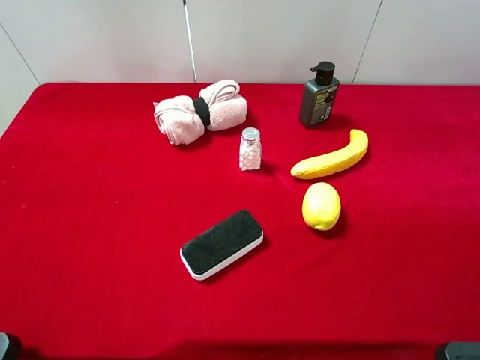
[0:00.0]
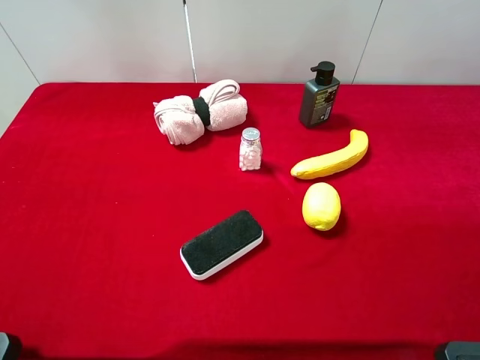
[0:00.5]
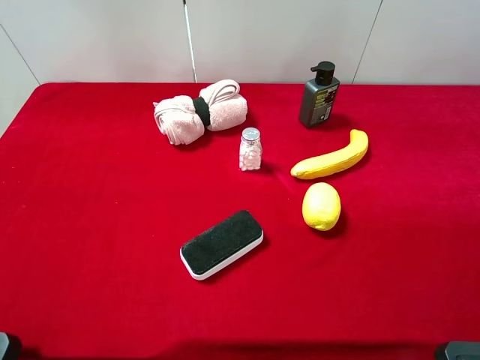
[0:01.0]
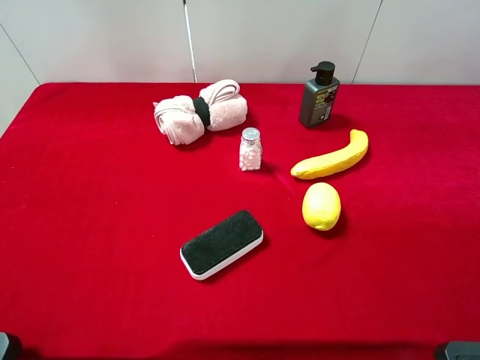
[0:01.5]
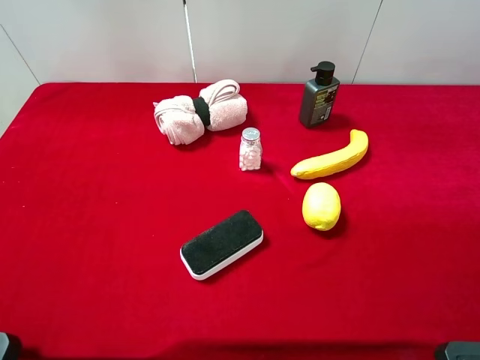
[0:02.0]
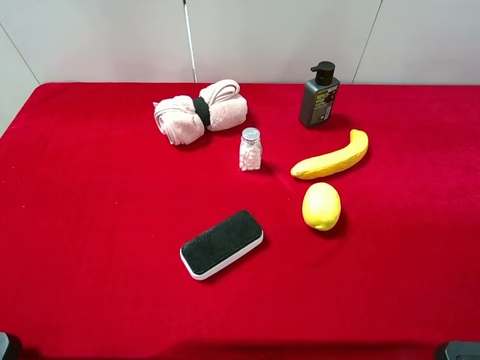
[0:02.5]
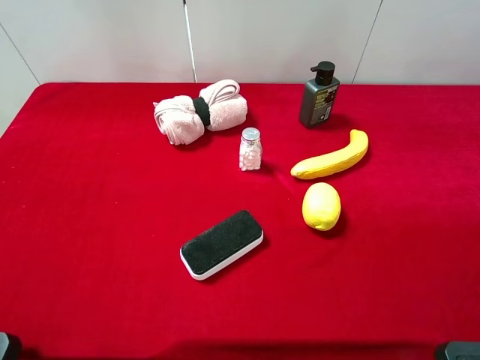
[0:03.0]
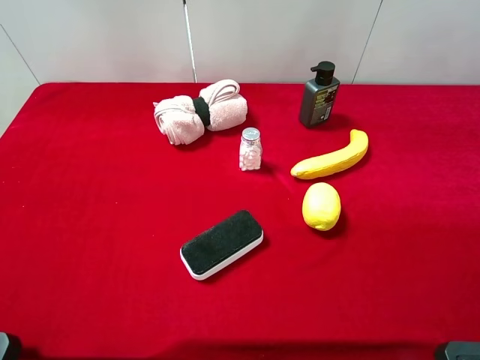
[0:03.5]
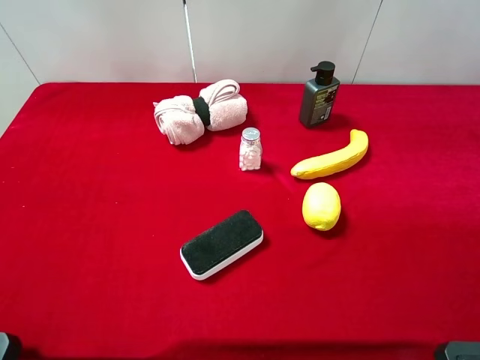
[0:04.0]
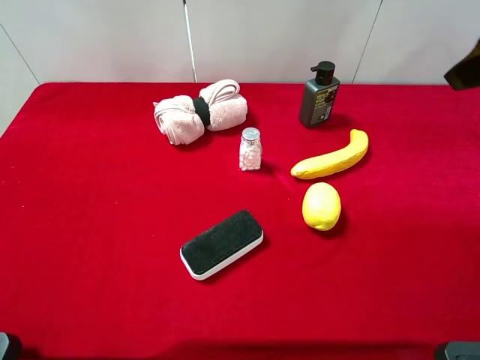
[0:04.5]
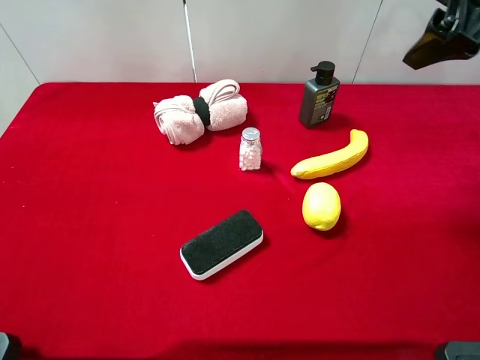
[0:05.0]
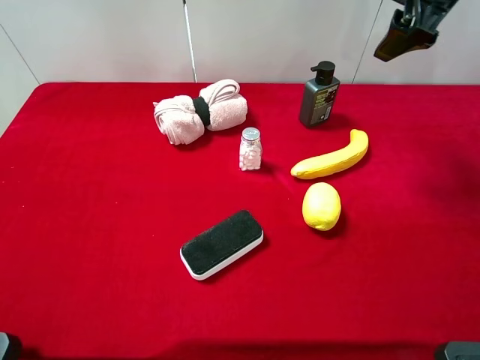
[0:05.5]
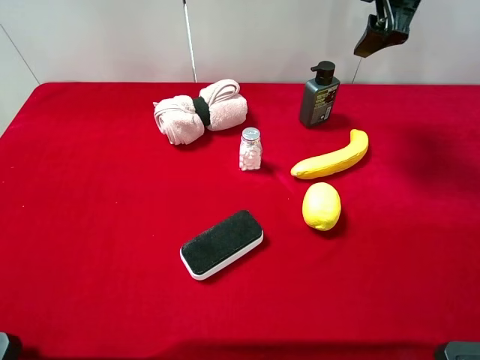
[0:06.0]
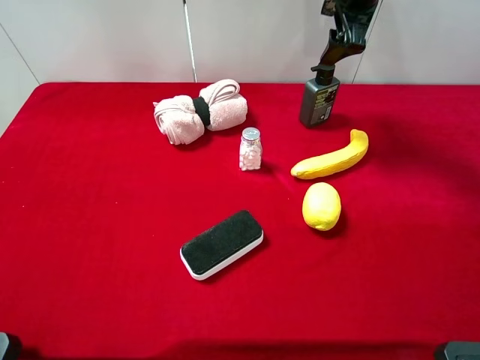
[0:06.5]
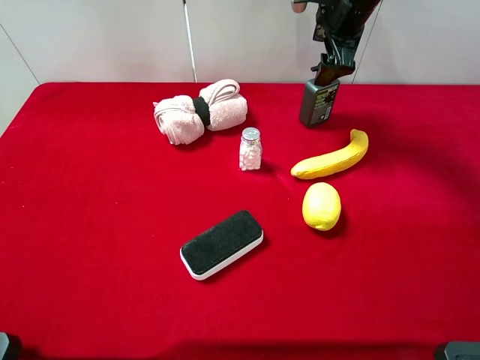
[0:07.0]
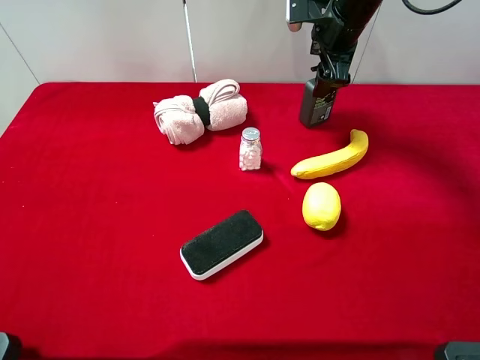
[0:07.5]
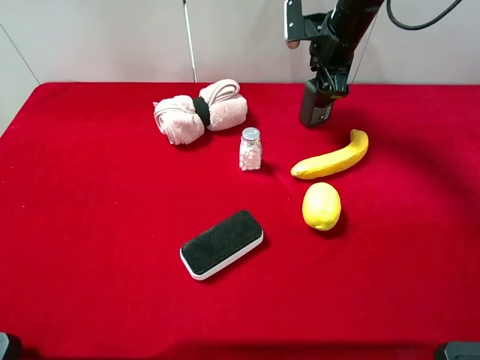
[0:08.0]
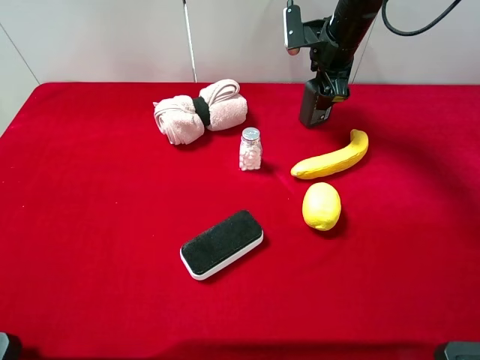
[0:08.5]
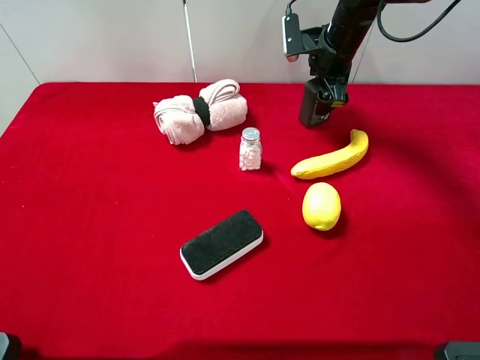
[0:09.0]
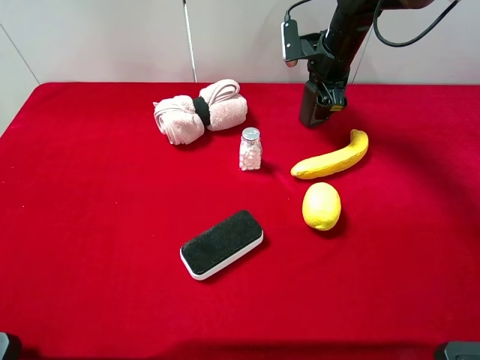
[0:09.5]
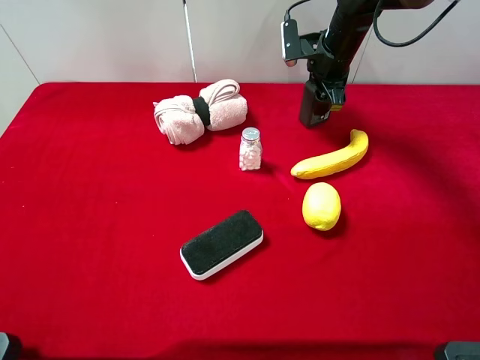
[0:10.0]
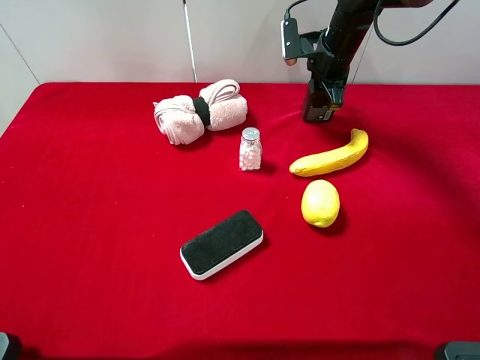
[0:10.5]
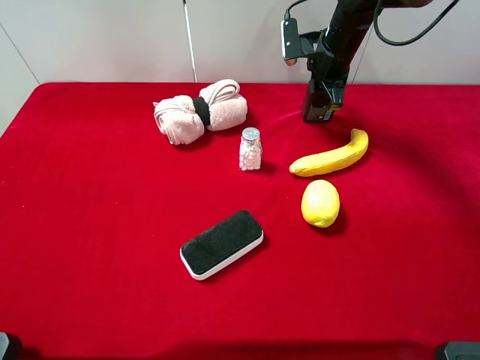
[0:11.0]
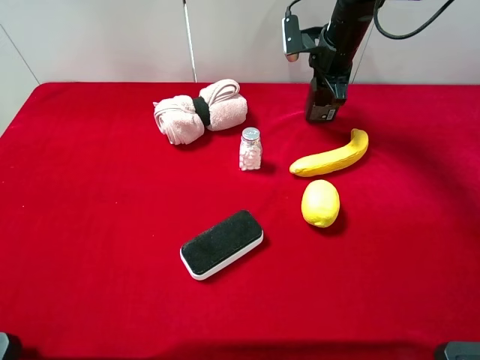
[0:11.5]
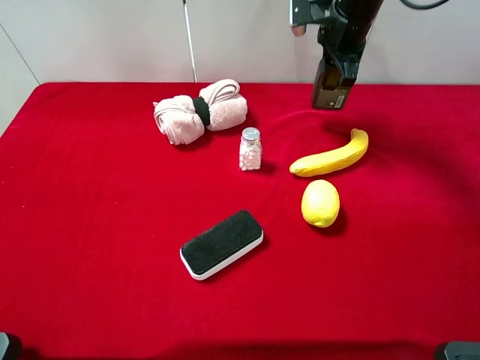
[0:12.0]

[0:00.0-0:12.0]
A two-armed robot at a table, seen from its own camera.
Task of the whole recording: the gripper move the object.
Step, 0:00.0 to 0:10.0: Grasp the hard facial cleanser with the right gripper.
0:00.0 to 0:02.0: Neither gripper changes place.
0:04.0 to 0:06.0: The right gripper moves forward, roughly 25 cm.
0:06.0 to 0:08.0: The right gripper heads downward and forward, covering approximately 15 cm.
0:08.0 to 0:10.0: The right gripper closes up.
0:10.0 to 0:12.0: The right gripper goes approximately 5 cm upward, and closes its fingers.

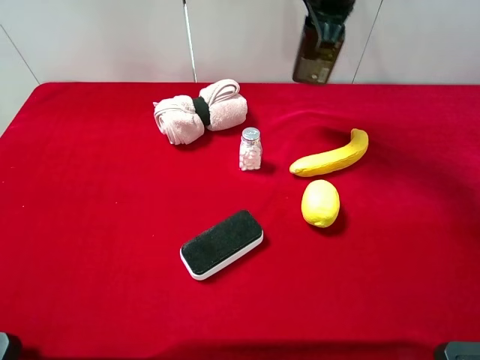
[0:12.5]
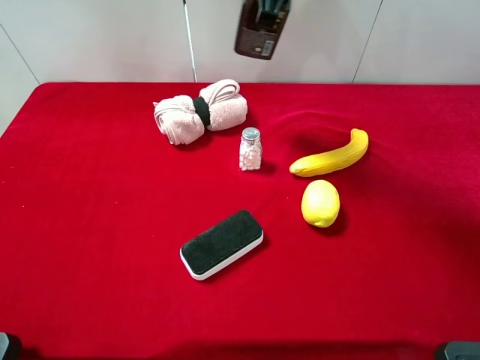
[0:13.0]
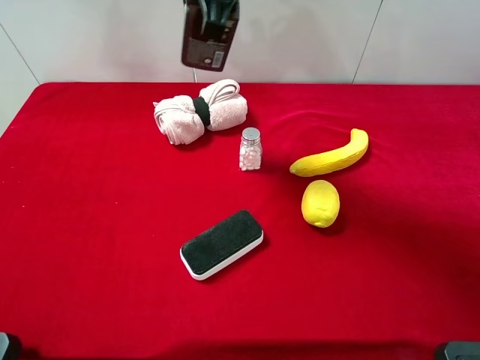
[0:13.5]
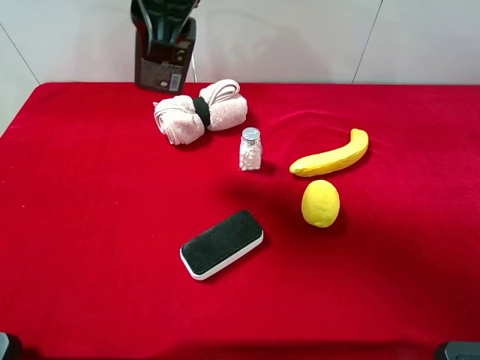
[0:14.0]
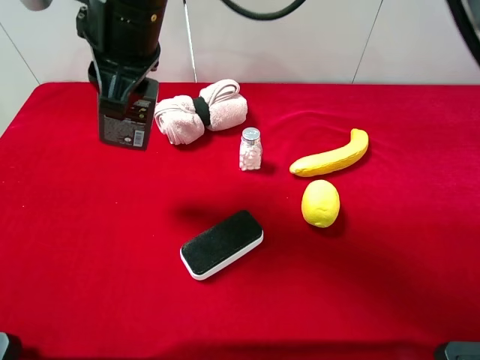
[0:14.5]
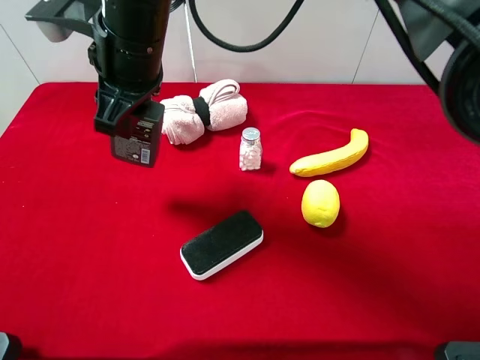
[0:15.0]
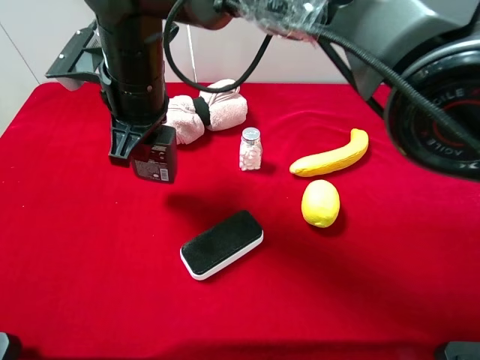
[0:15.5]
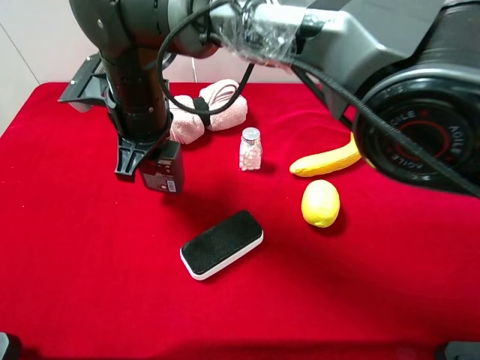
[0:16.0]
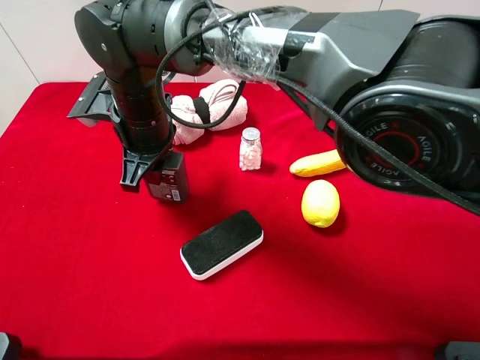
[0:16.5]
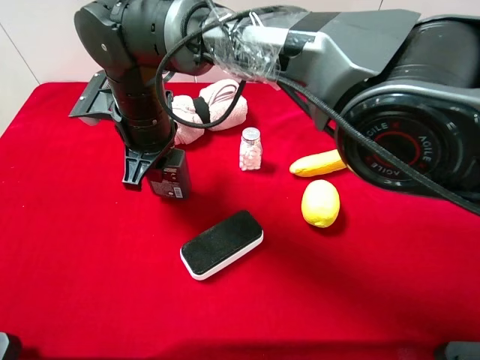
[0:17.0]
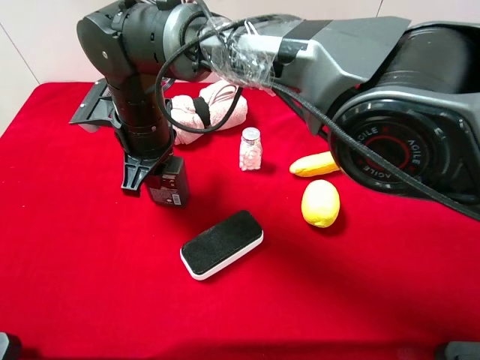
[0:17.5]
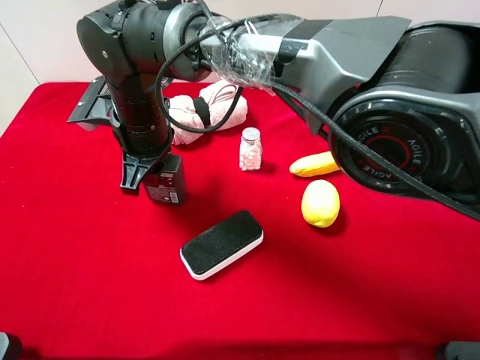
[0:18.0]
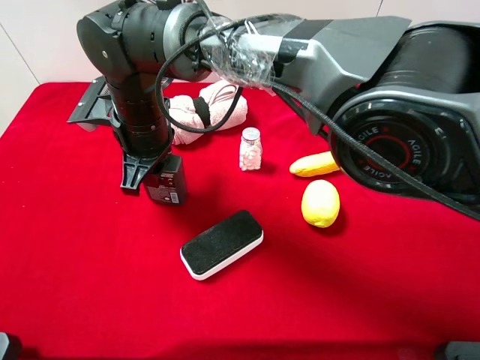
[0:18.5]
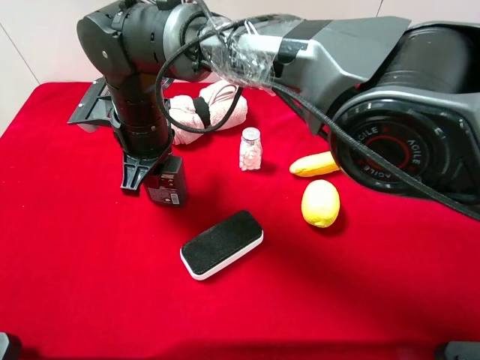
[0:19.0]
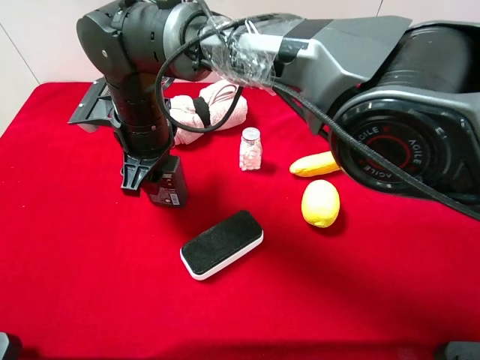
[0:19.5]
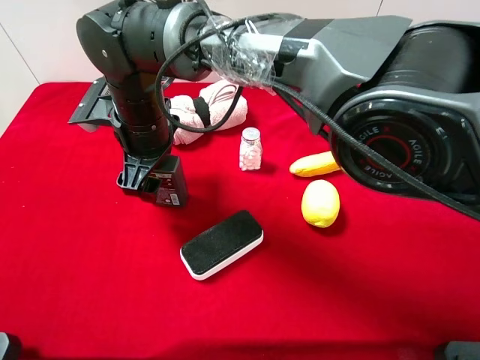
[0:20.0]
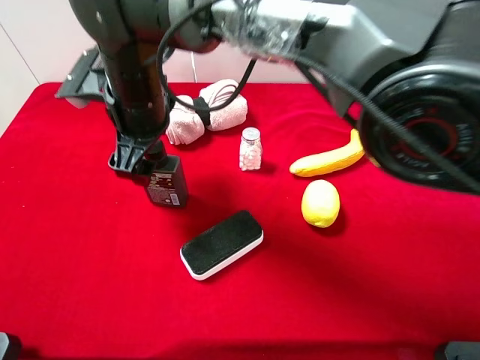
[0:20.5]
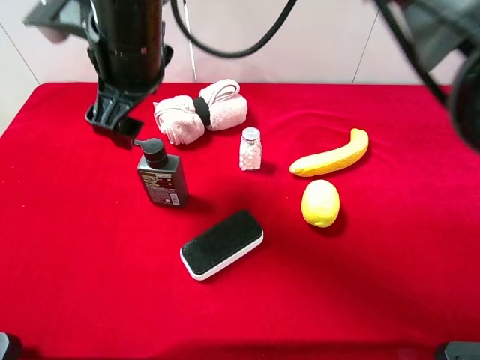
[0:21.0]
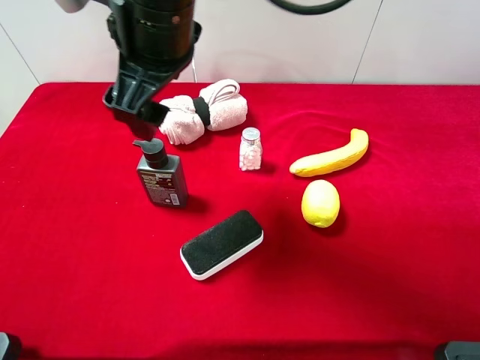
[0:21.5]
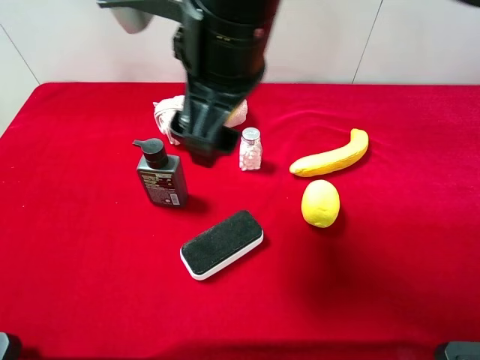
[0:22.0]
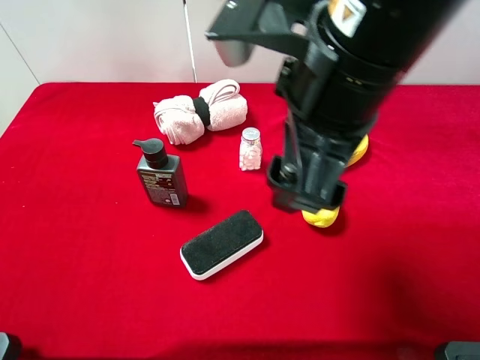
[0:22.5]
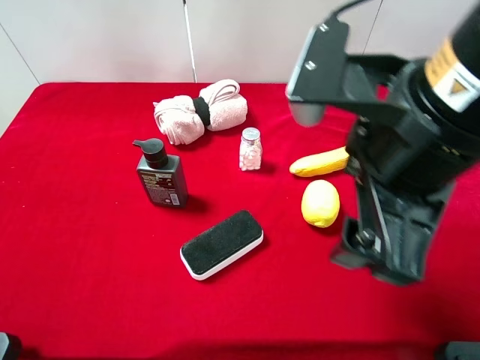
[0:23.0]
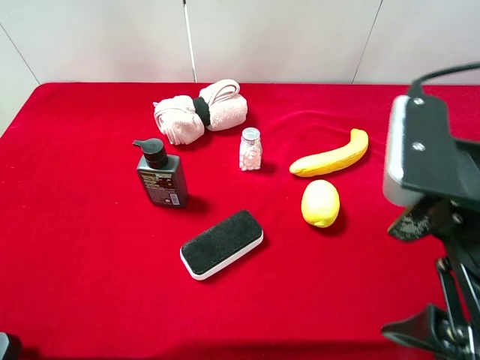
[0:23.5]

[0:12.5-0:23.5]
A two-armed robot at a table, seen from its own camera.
Task of the whole recording: the gripper move the object.
Step, 0:12.5 to 0:20.5: Place the hard facial cleanser on the table with the right gripper.
0:12.5 to 0:14.5: The right gripper travels to the left and backward by approximately 25 cm.
0:14.5 to 0:16.0: The right gripper shifts roughly 10 cm downward.
0:18.0 to 0:20.0: The right gripper opens.
0:20.0 to 0:21.5: The right gripper moves upward and to the right, roughly 15 cm.
0:21.5 to 0:23.5: The right gripper heads to the right and backward, covering approximately 30 cm.

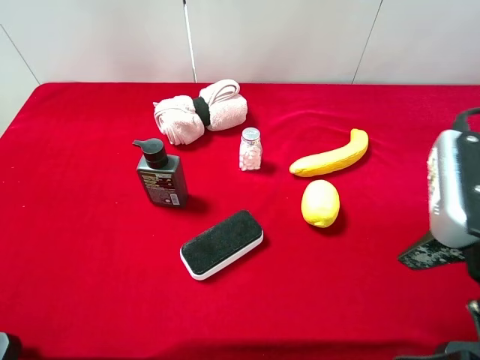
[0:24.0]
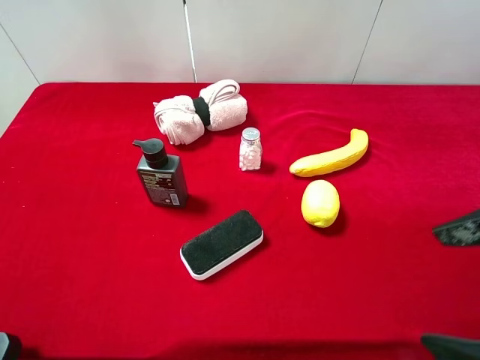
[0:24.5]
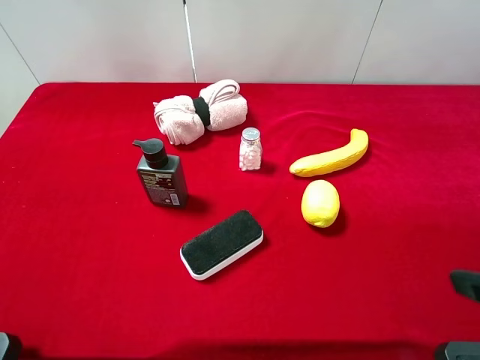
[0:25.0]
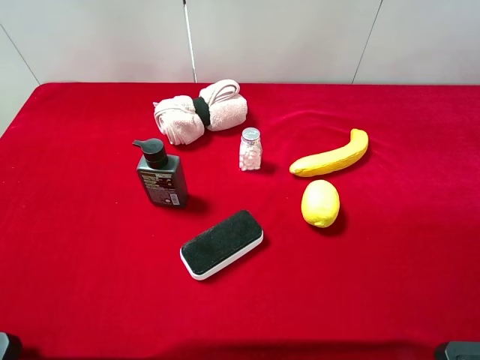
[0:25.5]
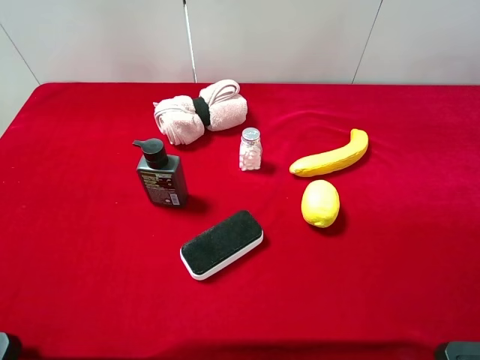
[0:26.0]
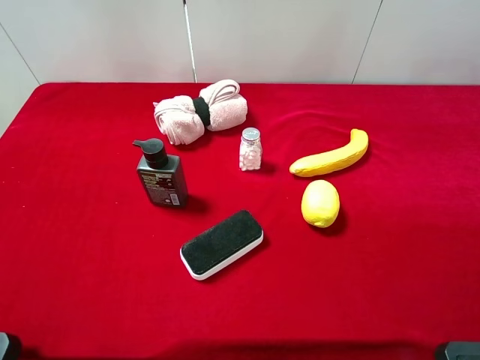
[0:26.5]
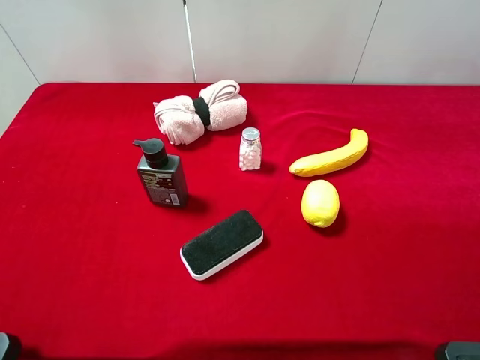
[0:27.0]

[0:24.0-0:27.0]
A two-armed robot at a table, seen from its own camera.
Task of the whole recording: the gripper move the object.
0:24.0 to 0:25.5: The right gripper travels to the right by about 10 cm.
